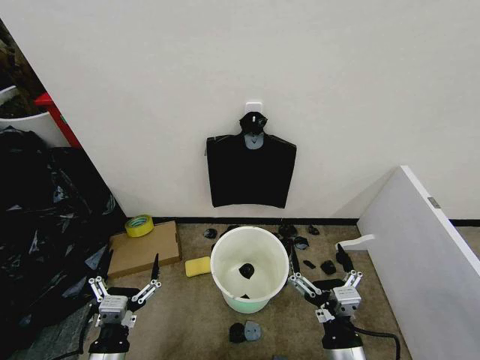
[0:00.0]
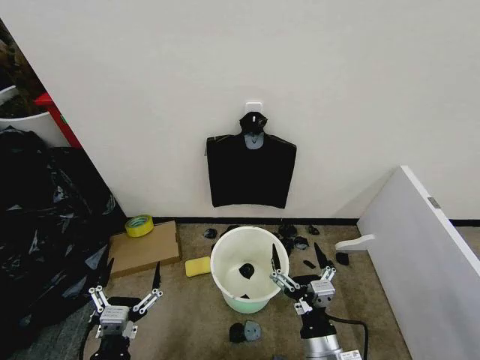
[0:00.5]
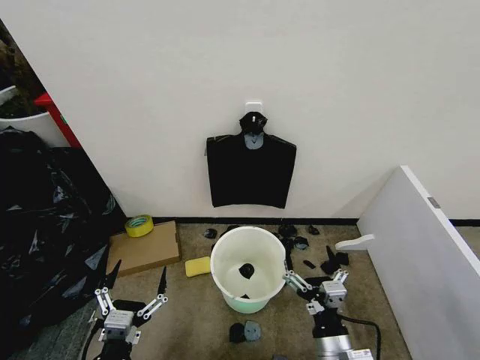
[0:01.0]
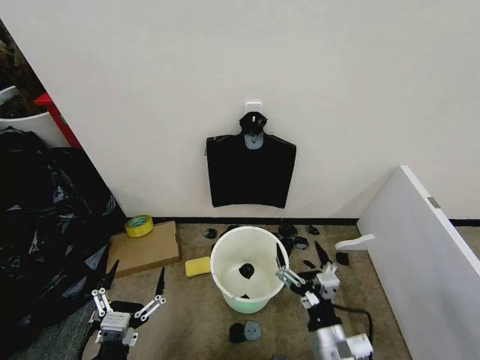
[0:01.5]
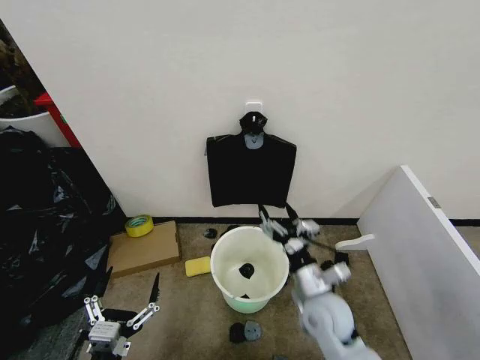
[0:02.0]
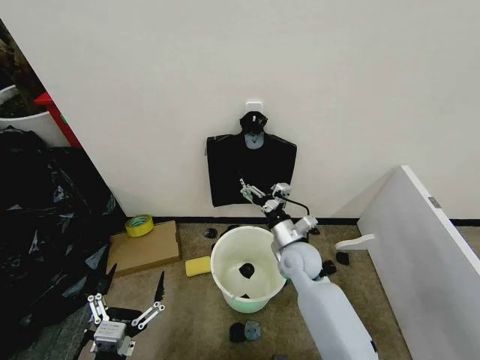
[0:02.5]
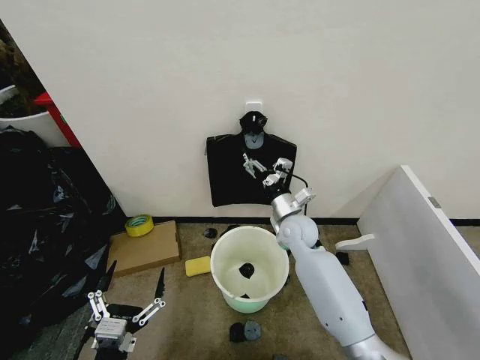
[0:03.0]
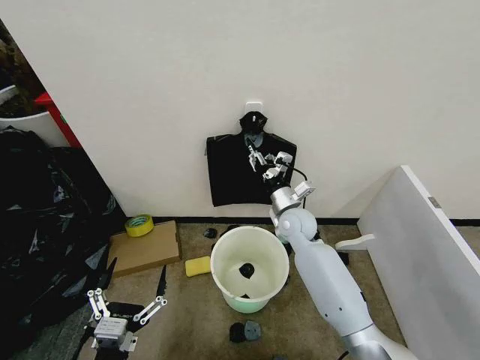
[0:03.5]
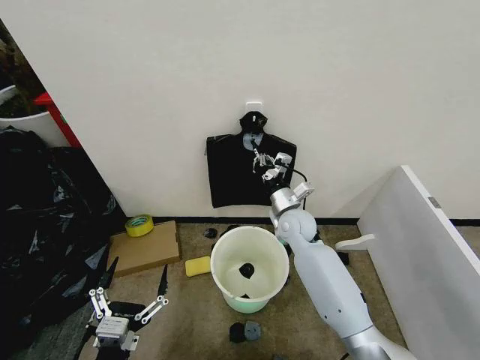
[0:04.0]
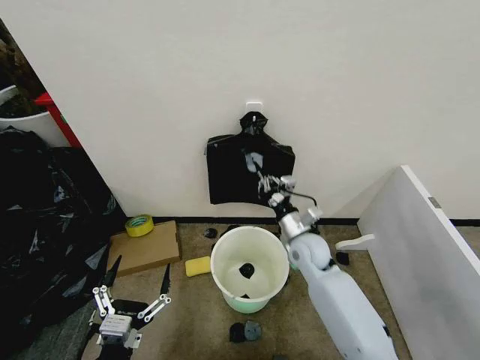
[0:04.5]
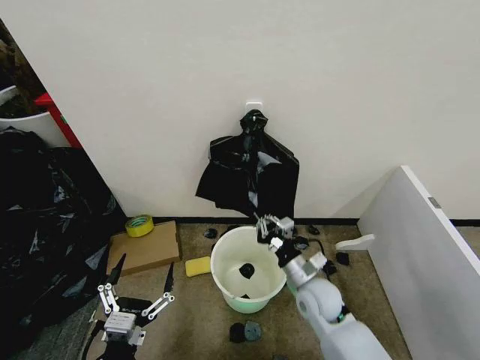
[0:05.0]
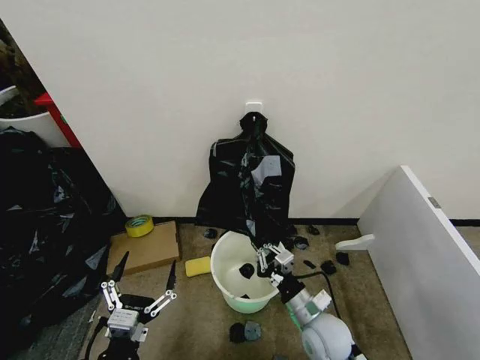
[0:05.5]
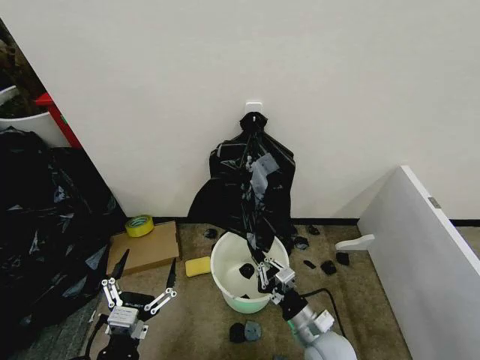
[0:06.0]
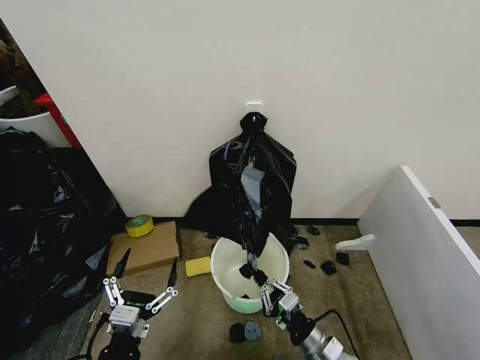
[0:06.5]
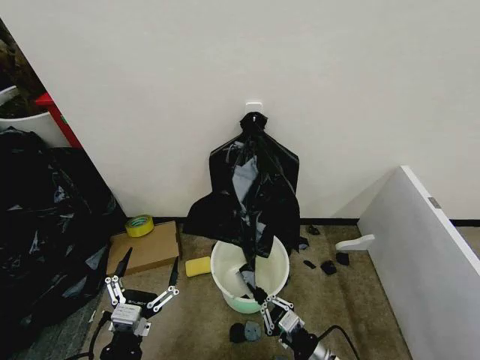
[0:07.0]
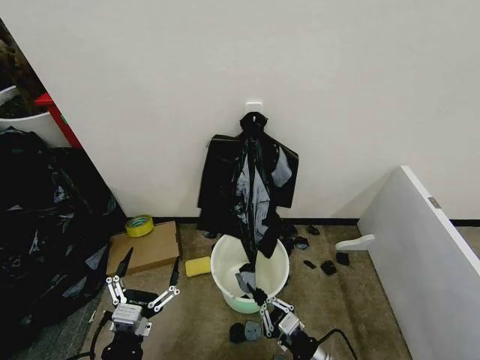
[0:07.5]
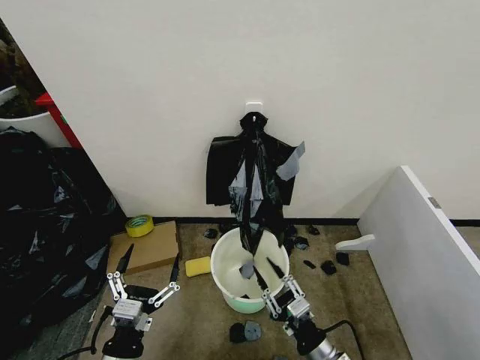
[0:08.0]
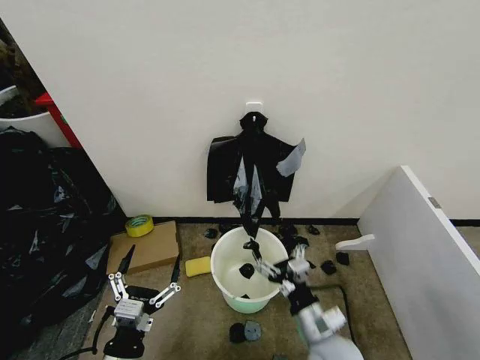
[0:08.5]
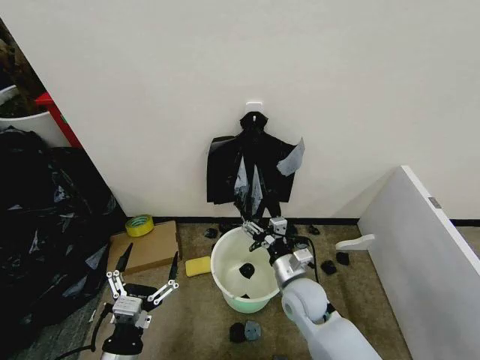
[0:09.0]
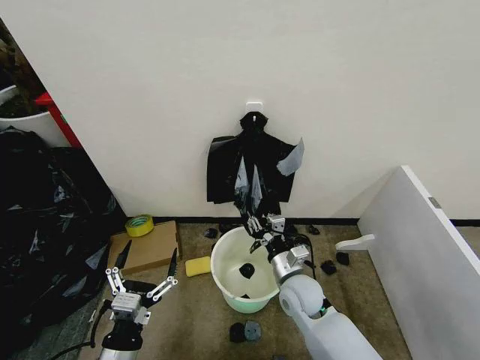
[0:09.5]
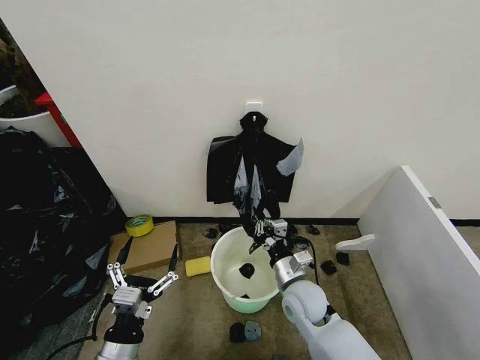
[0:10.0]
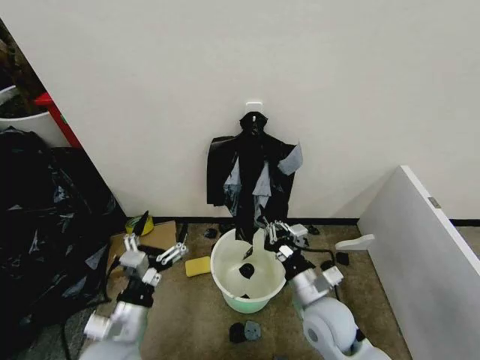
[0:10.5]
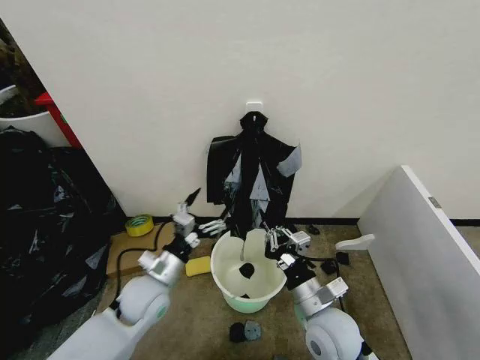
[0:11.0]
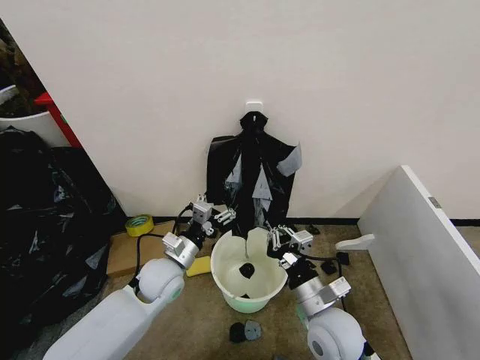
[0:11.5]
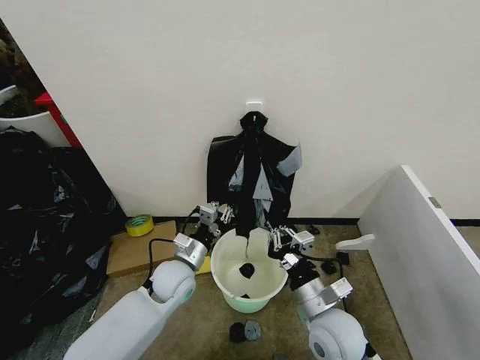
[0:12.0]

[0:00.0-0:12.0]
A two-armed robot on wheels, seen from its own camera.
Task of the whole recording: Place the garbage bag over the trash bin.
0:02.0 to 0:04.0: The right gripper moves forward, approximately 20 cm, and closes up.
0:04.0 to 0:06.0: The right gripper travels backward and downward by some 30 cm.
0:06.0 to 0:08.0: The right gripper shifts about 5 cm backward, and opens.
0:08.0 to 0:10.0: The right gripper moves forward, some 15 cm, and closes its fingers.
0:10.0 to 0:12.0: The left gripper moves forward, about 20 cm, and closes its fingers. The right gripper moves backward and upward, approximately 10 cm.

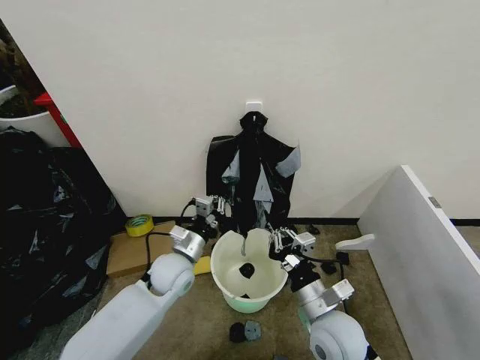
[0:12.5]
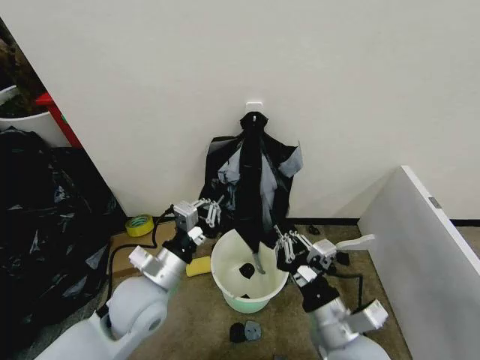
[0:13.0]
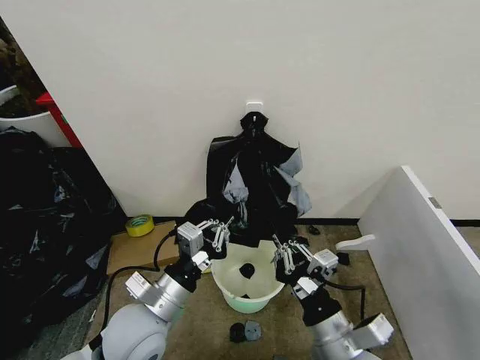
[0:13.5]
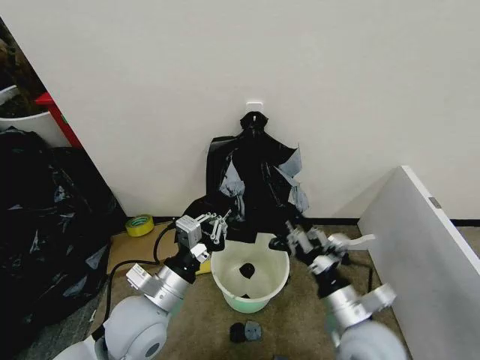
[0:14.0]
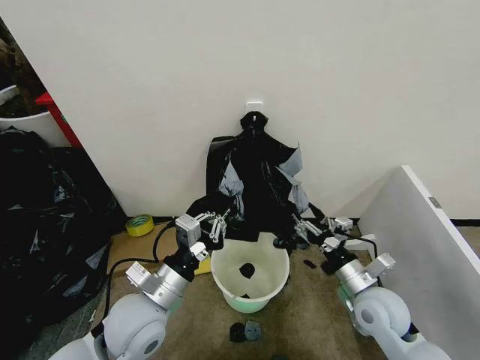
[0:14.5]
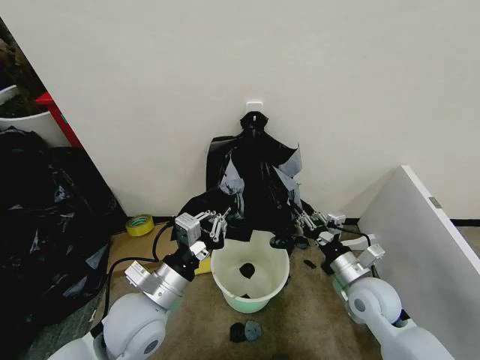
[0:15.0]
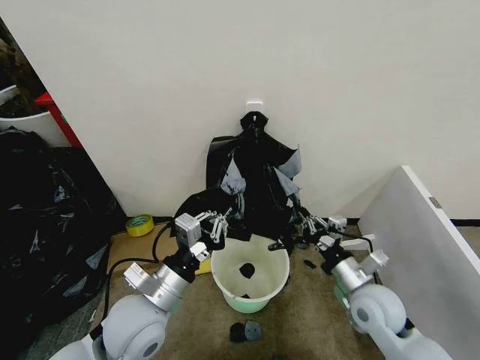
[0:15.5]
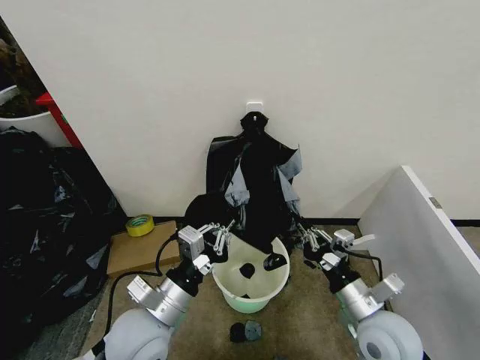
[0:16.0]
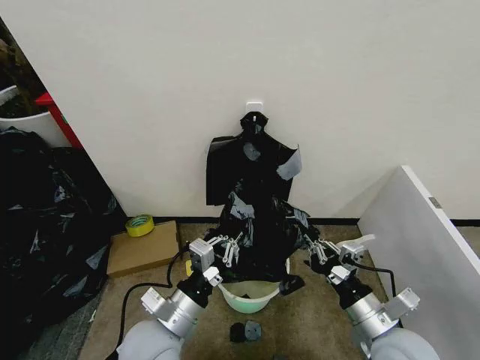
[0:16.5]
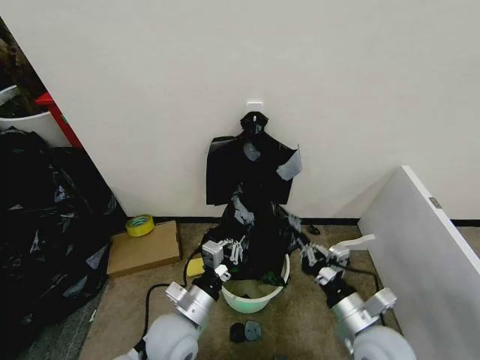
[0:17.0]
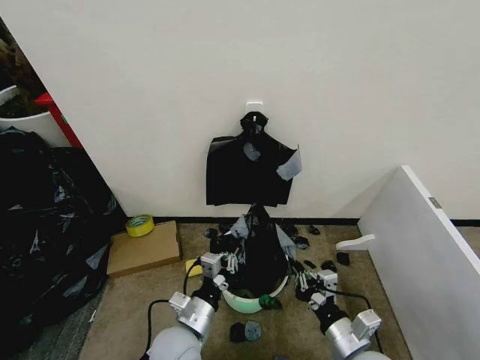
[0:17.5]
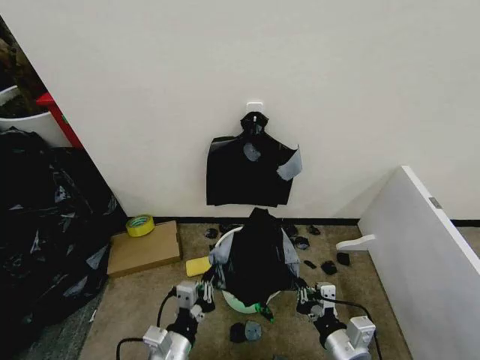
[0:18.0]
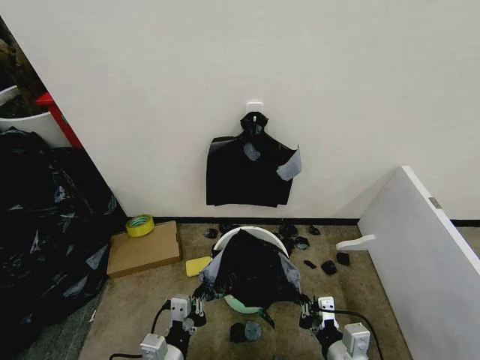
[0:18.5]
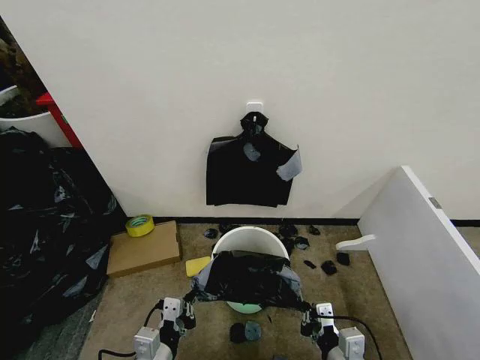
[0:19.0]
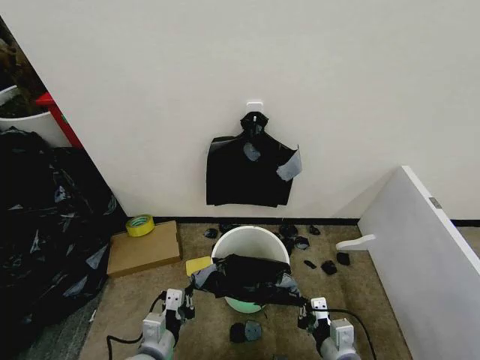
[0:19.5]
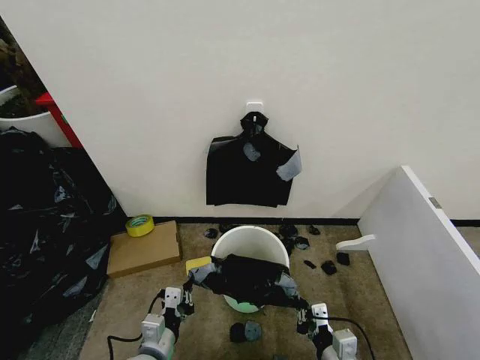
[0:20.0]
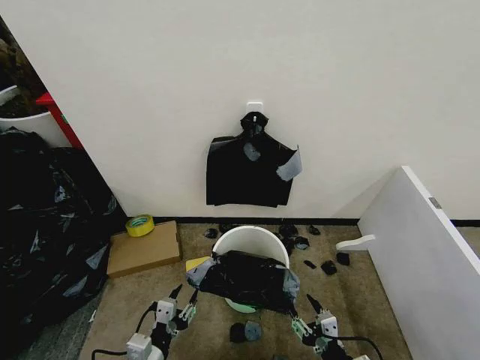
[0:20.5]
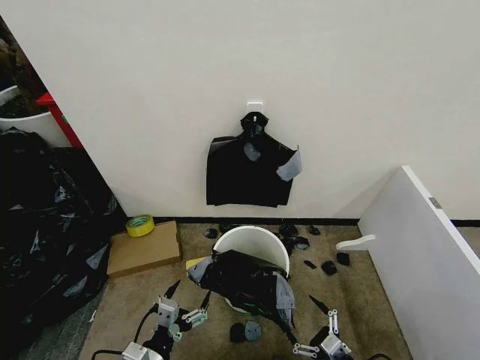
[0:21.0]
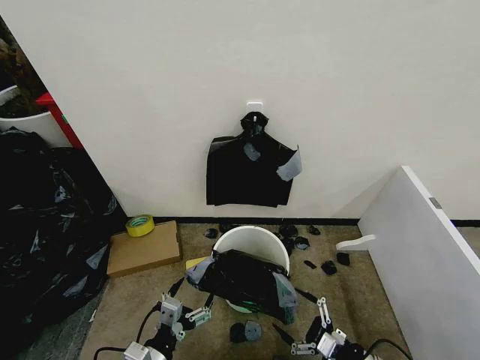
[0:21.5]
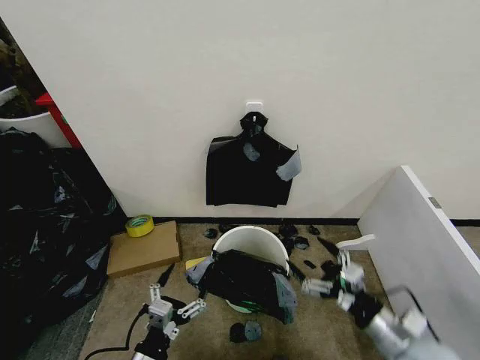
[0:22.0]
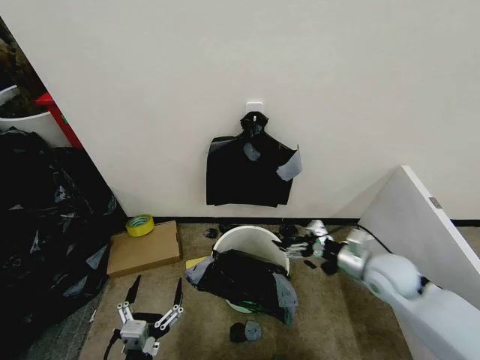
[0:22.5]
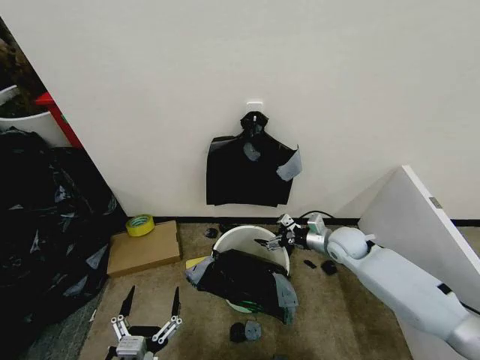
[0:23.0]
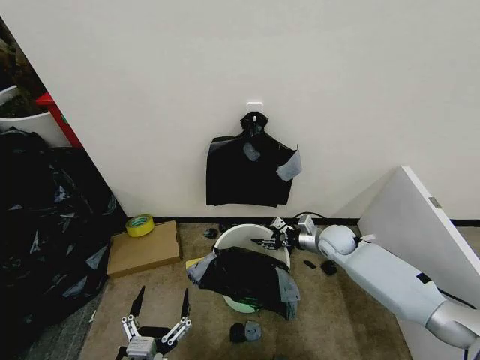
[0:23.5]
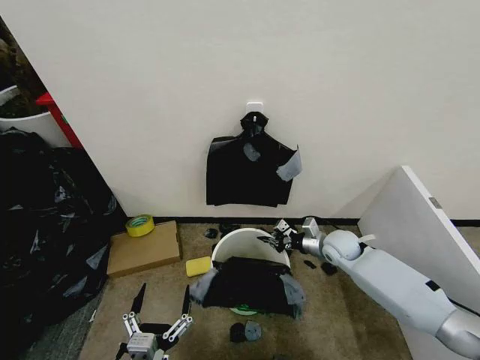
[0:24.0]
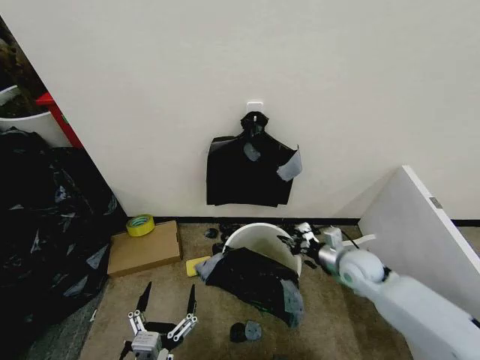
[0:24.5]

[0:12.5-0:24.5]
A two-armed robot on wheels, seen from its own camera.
Task of the whole recording: Place the garbage bag over the trash bin.
0:12.5 to 0:14.5: The right gripper travels to the right by some 10 cm, reaches some 10 cm backward, then returns, and opens up. Meanwhile the left gripper shifts approximately 15 cm backward and upward.
0:14.5 to 0:16.5: The left gripper changes place by roughly 5 cm. Meanwhile the right gripper goes approximately 10 cm backward, and closes its fingers.
0:16.5 to 0:18.5: Both grippers move downward and backward, roughly 10 cm.
0:18.5 to 0:20.5: The right gripper heads downward, covering some 5 cm, and opens up; the left gripper travels to the left by approximately 5 cm, and opens.
0:20.5 to 0:22.5: The left gripper moves backward, some 5 cm, and opens, while the right gripper heads forward and upward, covering roughly 25 cm, and opens its fingers.
0:22.5 to 0:24.5: The right gripper goes approximately 5 cm downward, goes forward and returns, some 15 cm each way, and closes up.

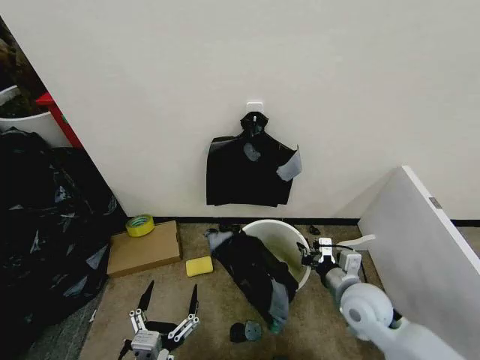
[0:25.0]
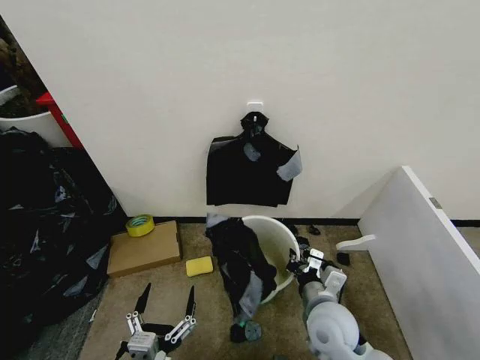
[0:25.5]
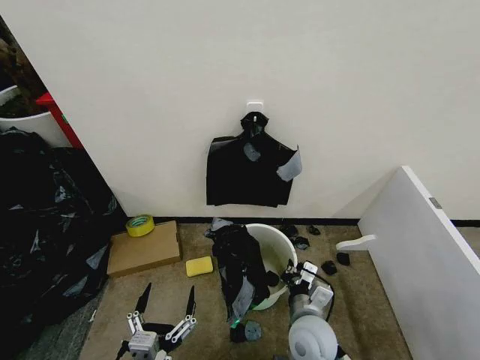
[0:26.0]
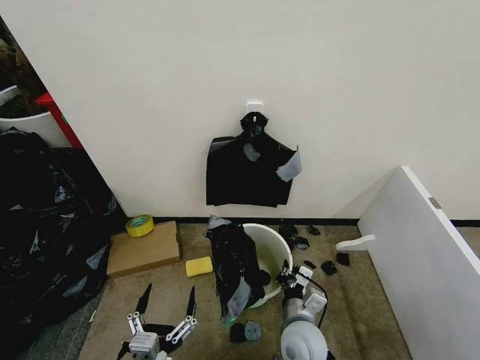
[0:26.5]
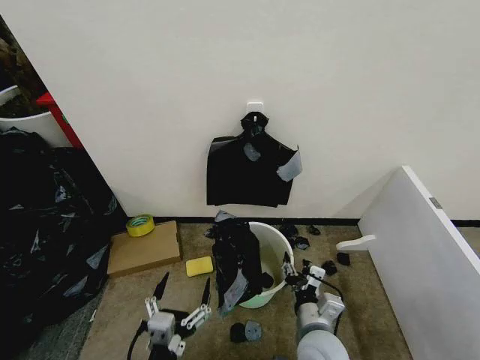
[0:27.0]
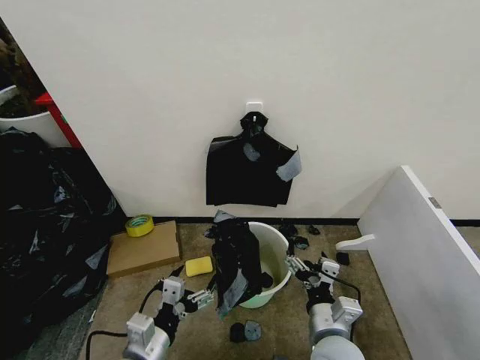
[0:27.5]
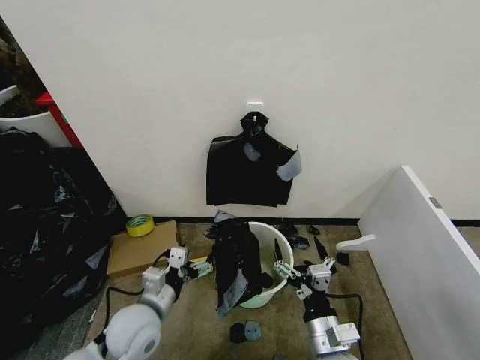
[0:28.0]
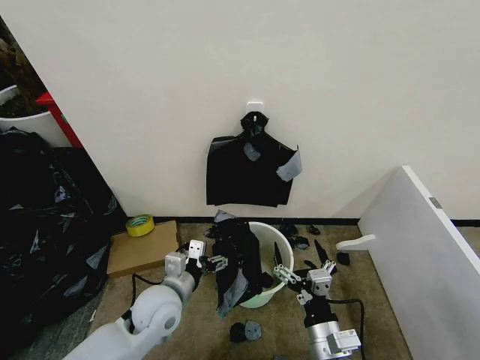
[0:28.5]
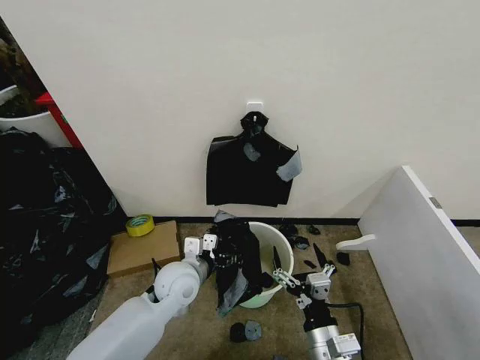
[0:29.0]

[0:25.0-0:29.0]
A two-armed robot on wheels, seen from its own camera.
Task of the whole recording: Place the garbage bag over the trash bin.
0:25.0 to 0:27.0: The right gripper heads to the left and backward, covering about 15 cm, and opens.
0:27.0 to 0:29.0: The left gripper travels forward by approximately 25 cm. Meanwhile the right gripper moves backward, approximately 5 cm, and opens its fingers.
